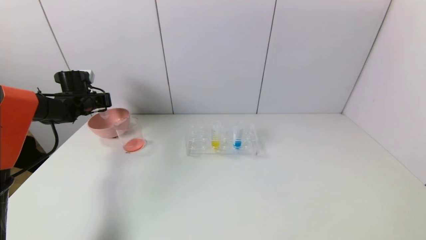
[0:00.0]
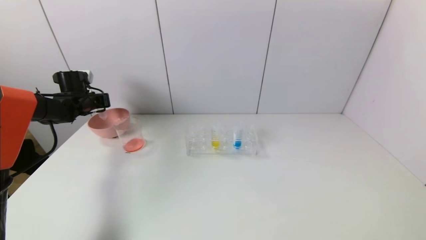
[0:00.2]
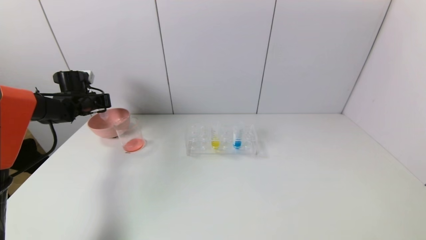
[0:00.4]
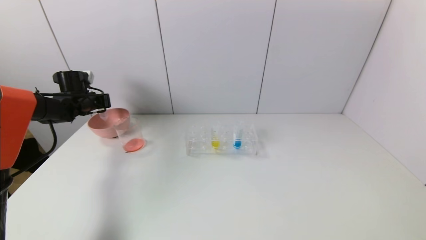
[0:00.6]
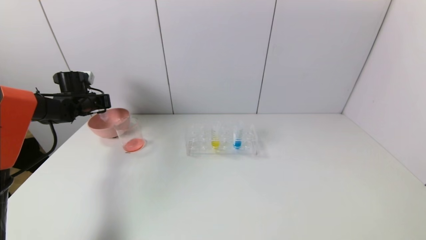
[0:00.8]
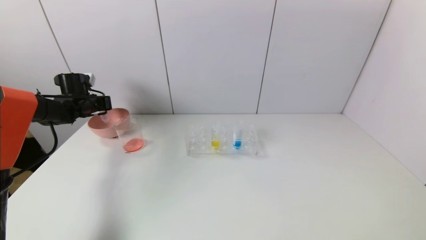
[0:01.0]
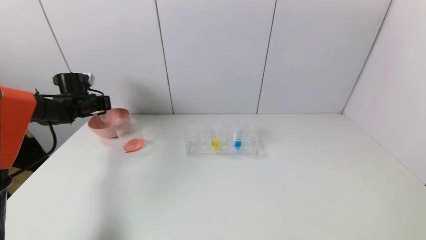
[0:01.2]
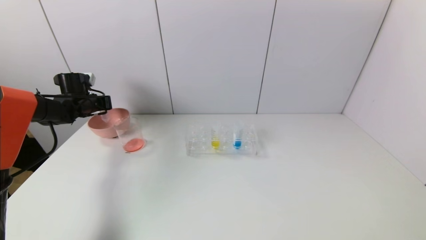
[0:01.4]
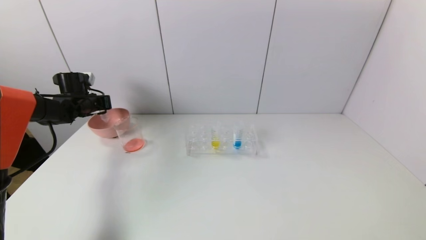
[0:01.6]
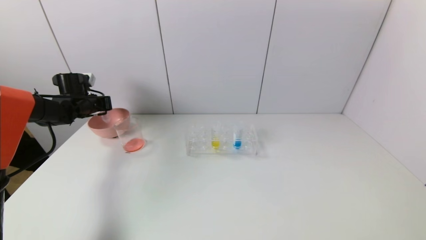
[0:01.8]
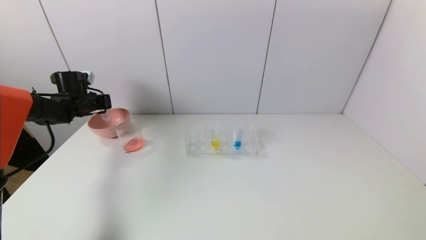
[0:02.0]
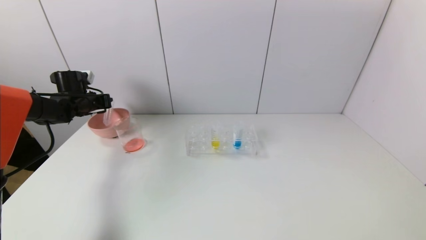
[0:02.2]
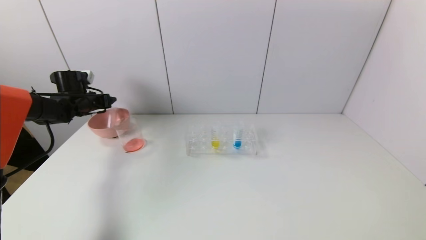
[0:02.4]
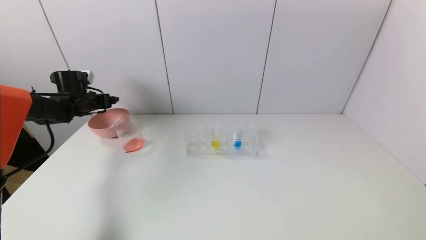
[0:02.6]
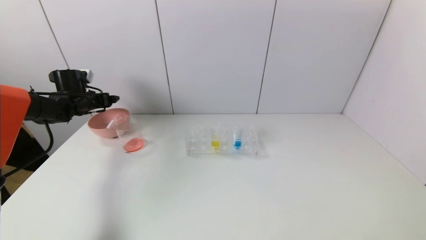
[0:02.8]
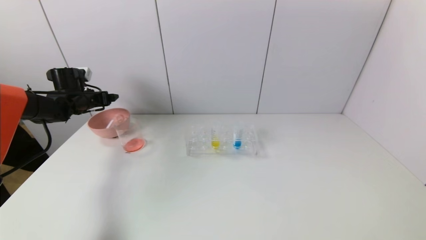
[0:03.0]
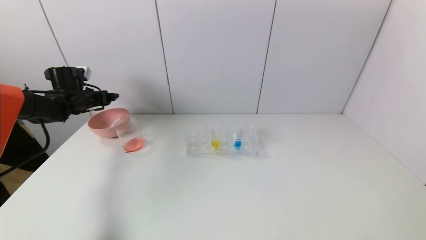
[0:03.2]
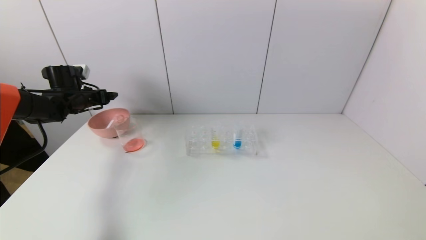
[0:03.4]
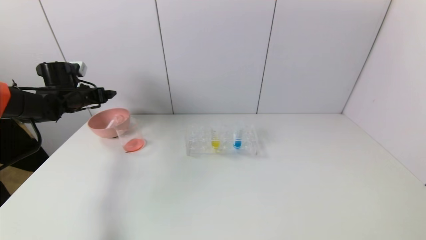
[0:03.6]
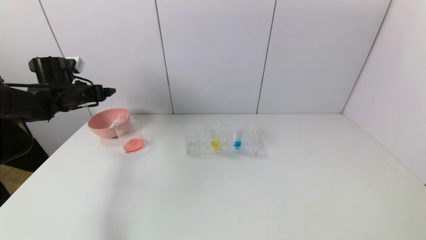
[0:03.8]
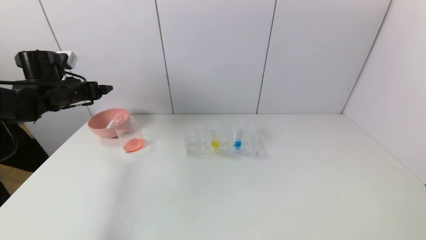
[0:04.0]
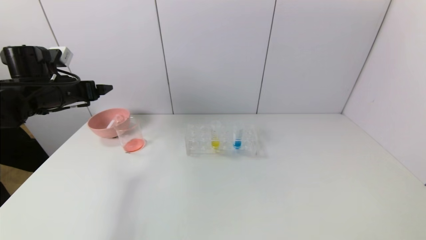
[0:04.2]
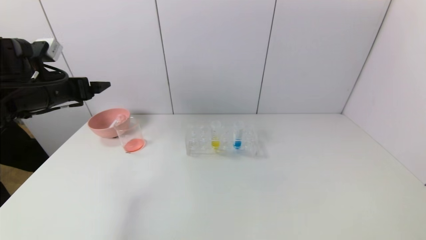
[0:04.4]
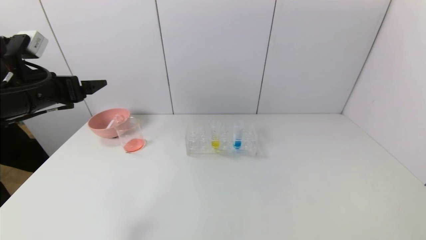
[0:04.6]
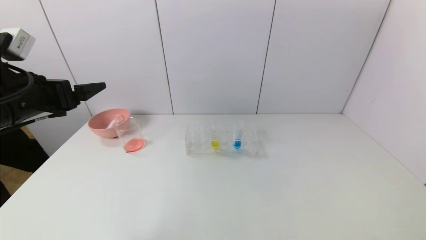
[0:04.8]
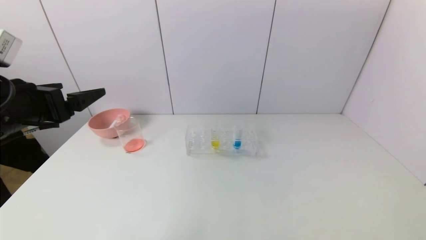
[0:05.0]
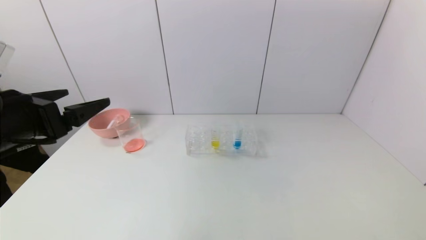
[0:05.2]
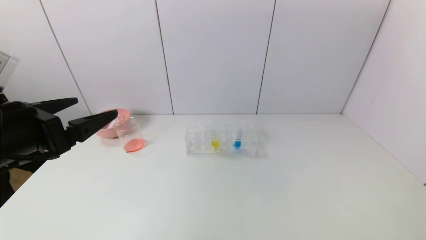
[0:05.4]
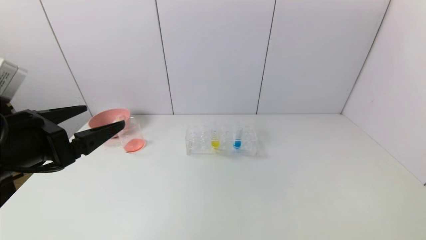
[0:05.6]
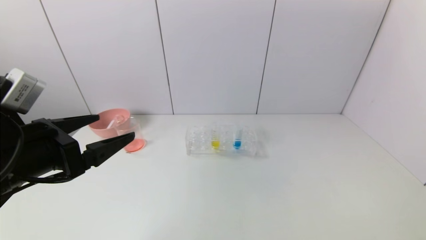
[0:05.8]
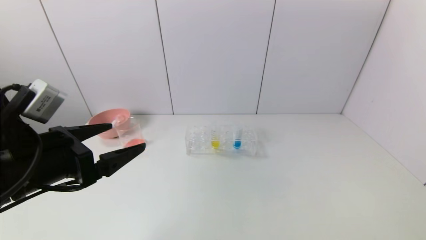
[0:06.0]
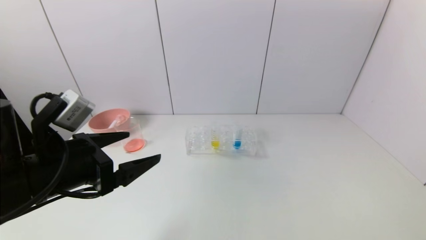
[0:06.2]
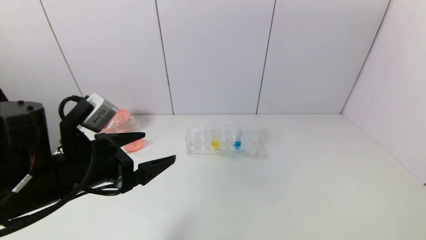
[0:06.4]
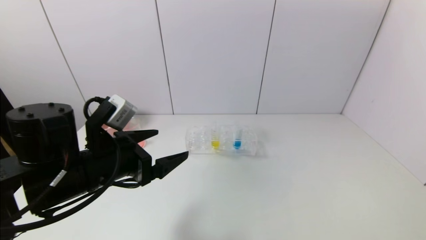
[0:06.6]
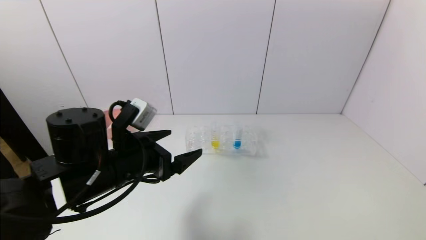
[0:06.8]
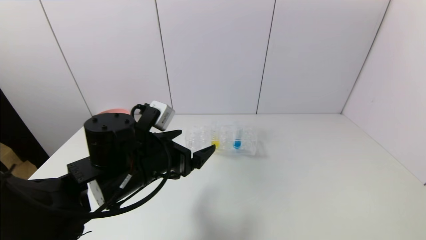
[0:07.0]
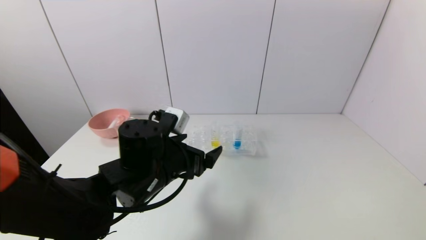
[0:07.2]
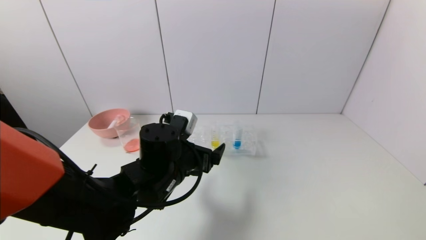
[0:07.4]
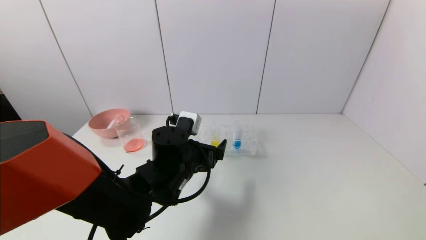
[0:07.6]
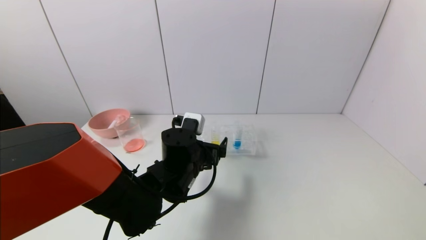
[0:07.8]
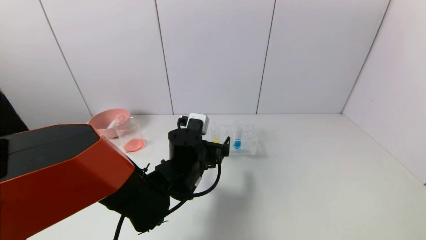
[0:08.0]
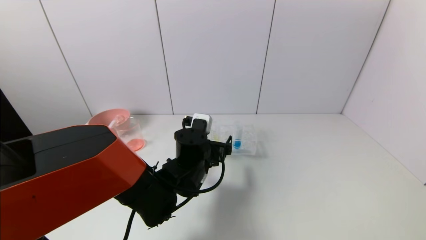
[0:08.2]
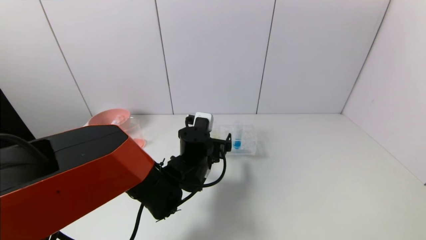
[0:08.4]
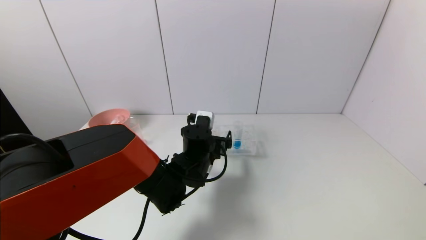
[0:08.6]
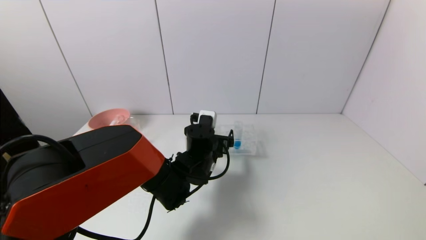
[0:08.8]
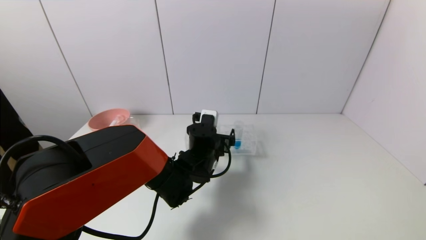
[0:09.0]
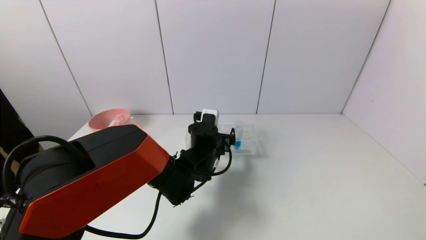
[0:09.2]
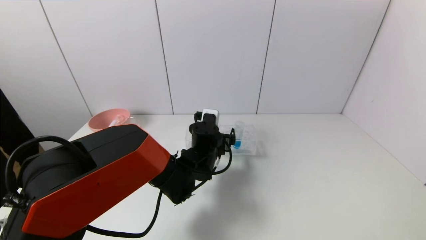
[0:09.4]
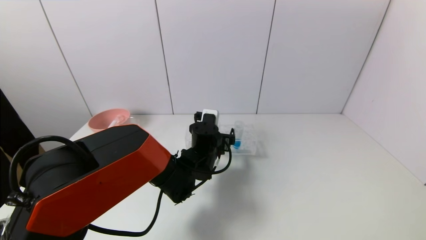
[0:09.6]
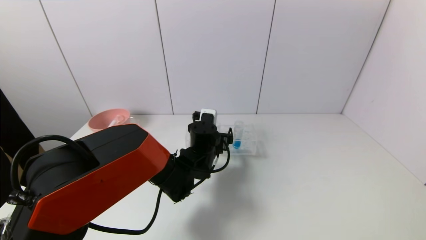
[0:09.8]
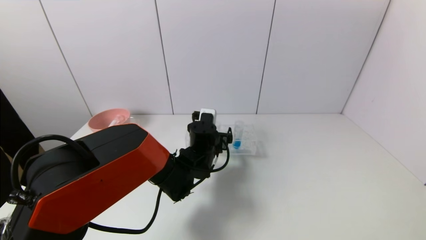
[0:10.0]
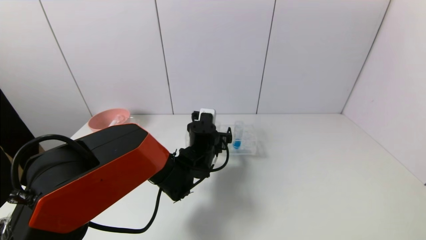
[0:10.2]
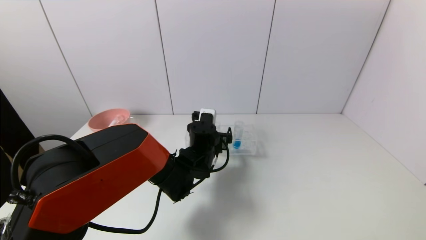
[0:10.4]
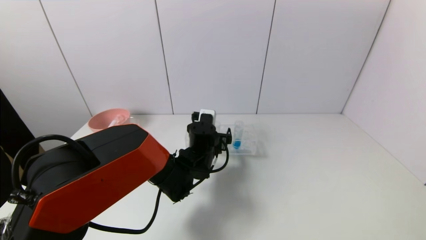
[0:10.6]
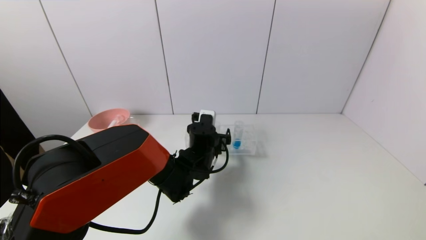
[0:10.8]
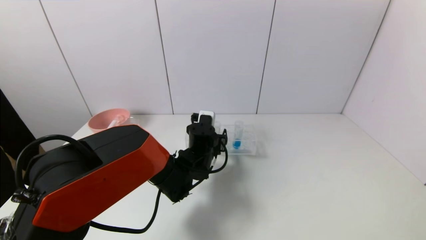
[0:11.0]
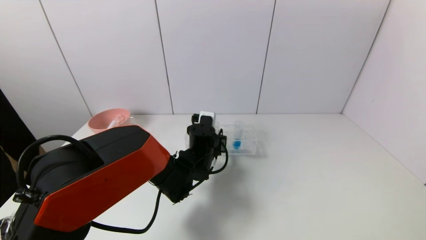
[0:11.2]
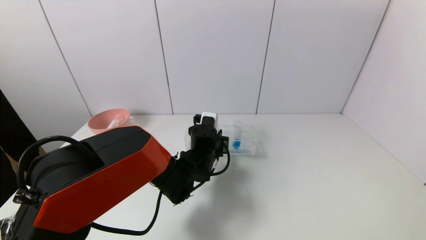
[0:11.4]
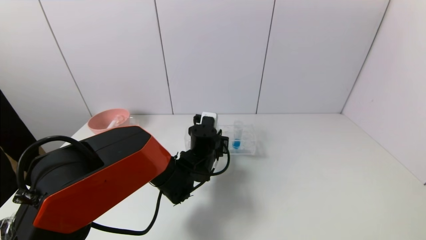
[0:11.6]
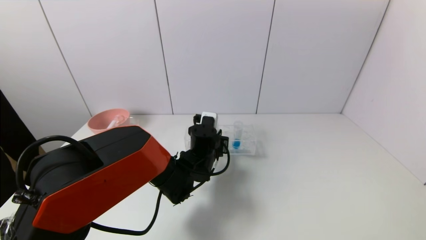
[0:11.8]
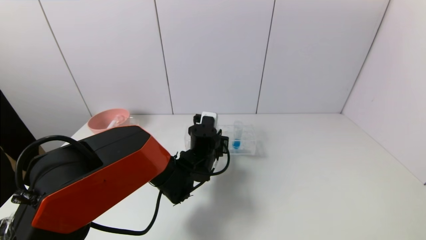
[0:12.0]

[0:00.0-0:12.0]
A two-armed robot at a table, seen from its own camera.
Task of the whole recording: pick up the test tube with yellow pigment and the test tube with red pigment by grippers and pour them into the beaker.
Step, 0:00.0 to 0:02.4: Place the test tube into the pink bowl with the left gripper.
Step, 0:02.6 to 0:11.8: Grasp the yellow reagent with the left gripper.
0:00.0 to 0:01.6: Both grippers stay about where they are.
0:01.6 to 0:03.0: The left gripper opens its fingers.
0:03.0 to 0:04.4: The left gripper heads backward and upward, covering some 20 cm.
0:04.4 to 0:06.0: The left gripper goes roughly 15 cm backward and to the right.
0:06.0 to 0:07.6: The left gripper heads to the right, forward and downward, covering about 25 cm.
0:07.6 to 0:09.0: The left gripper is displaced forward by approximately 5 cm.
0:09.0 to 0:10.4: The grippers stay close to where they were, moving slightly.
0:10.4 to 0:12.0: The left gripper closes up.

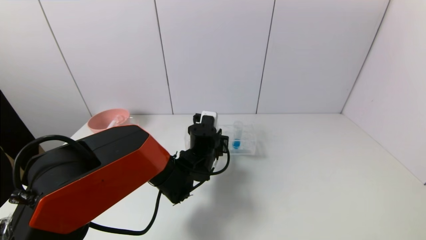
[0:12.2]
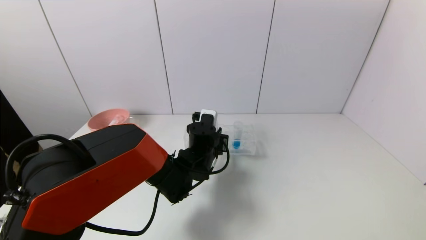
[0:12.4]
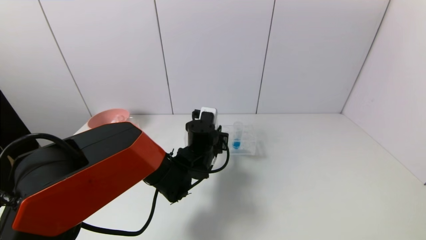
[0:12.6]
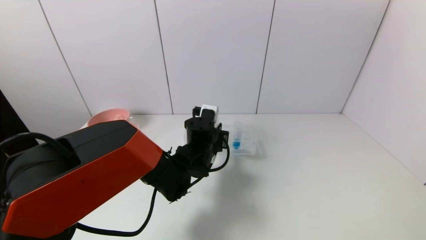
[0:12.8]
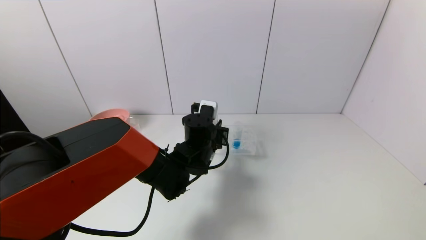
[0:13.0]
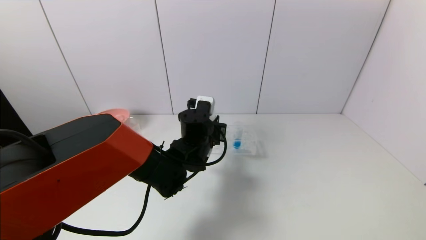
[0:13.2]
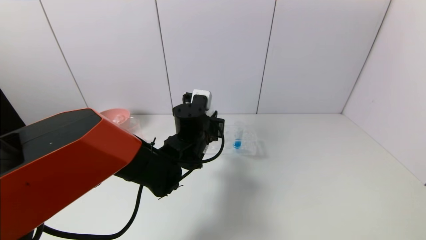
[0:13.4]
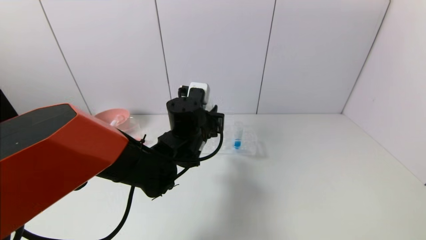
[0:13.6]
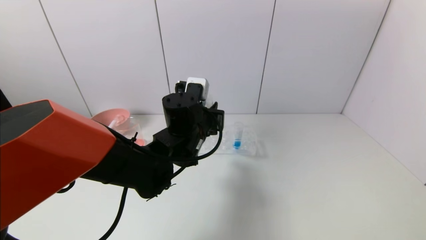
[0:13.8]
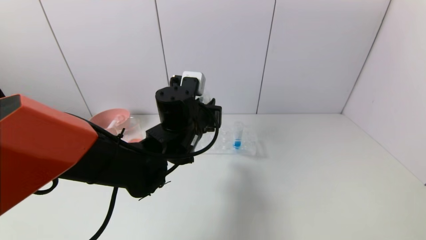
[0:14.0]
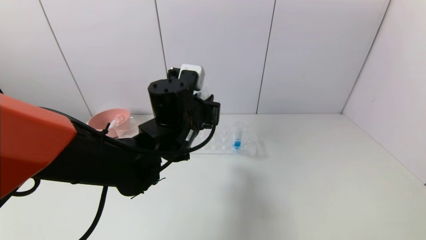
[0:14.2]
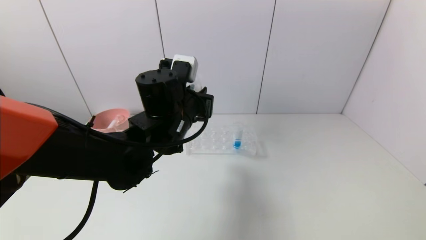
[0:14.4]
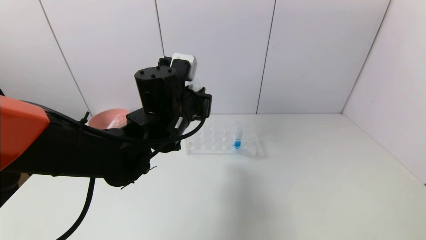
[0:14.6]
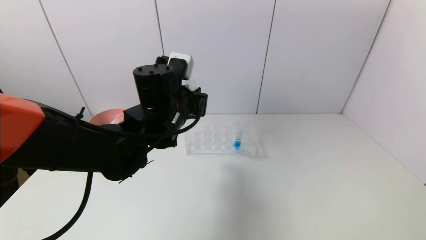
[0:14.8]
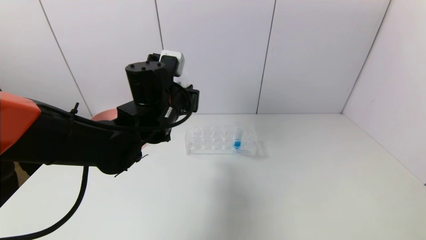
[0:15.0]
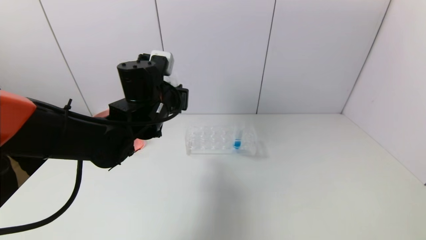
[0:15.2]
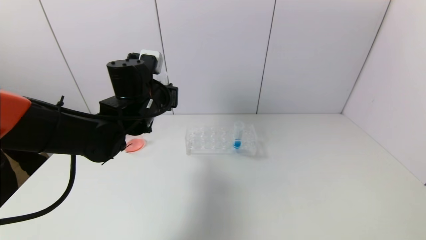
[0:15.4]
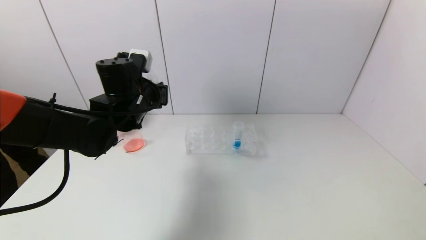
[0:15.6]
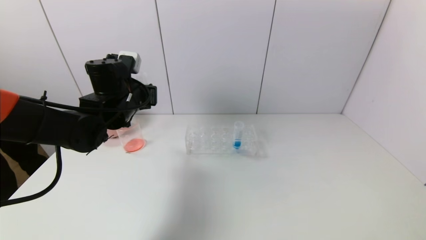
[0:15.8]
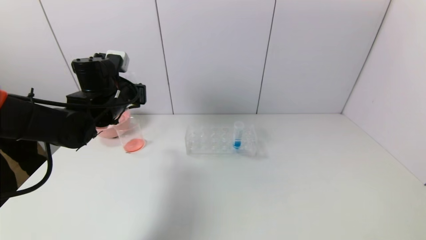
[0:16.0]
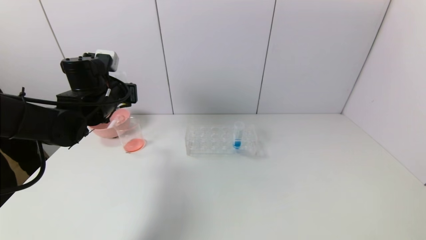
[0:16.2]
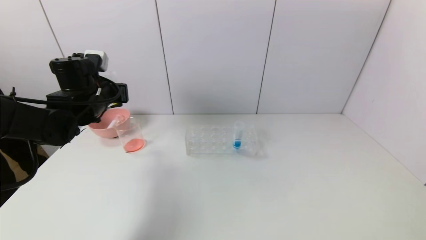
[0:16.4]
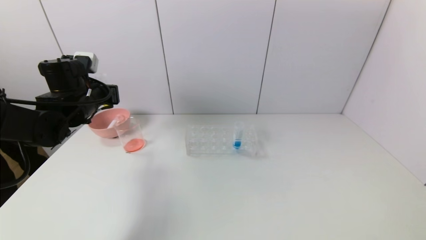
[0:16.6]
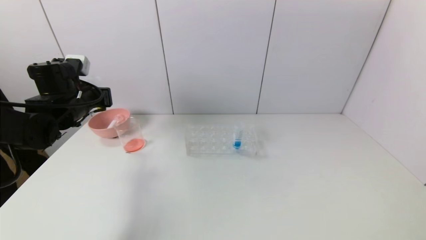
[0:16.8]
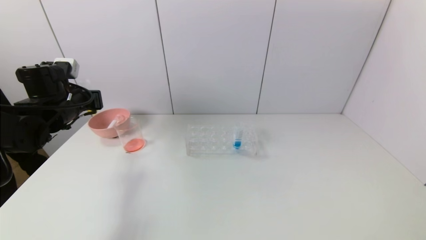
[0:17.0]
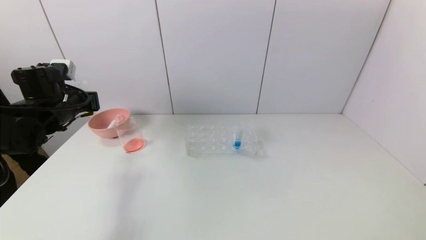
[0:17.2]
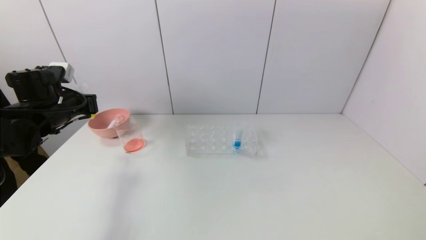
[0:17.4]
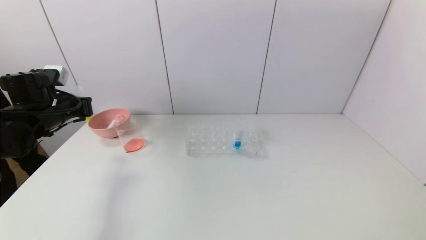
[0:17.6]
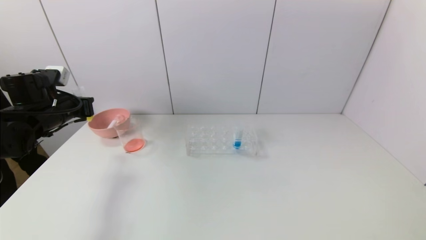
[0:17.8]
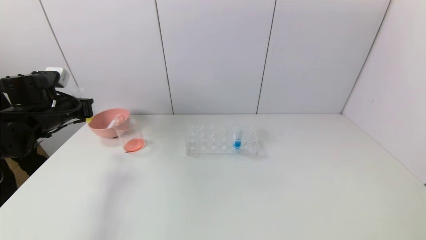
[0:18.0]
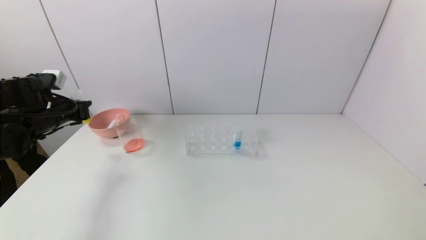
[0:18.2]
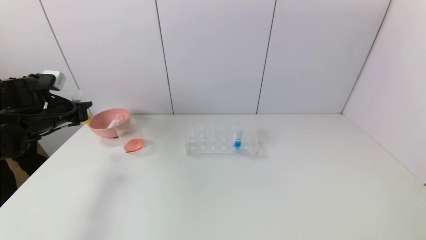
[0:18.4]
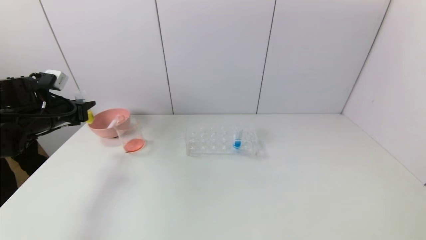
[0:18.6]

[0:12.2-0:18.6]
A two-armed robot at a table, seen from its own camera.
Task of the whole recording: pick up the test tube with yellow pigment and the test tube with red pigment by grippers and pour them into the beaker.
0:12.2 to 0:13.8: The left gripper goes some 10 cm upward.
0:13.8 to 0:15.4: The left gripper moves to the left, about 10 cm.
0:15.4 to 0:17.0: The left gripper heads to the left, covering some 20 cm.
0:17.0 to 0:18.6: The left gripper heads to the left, covering some 5 cm.
